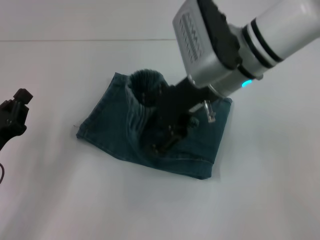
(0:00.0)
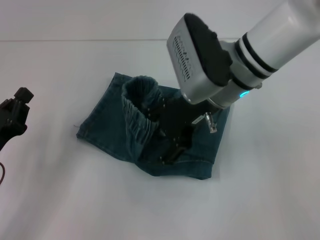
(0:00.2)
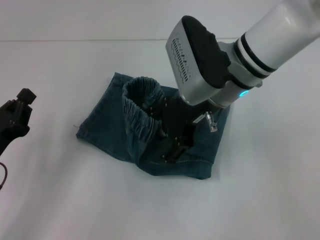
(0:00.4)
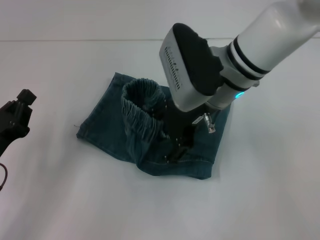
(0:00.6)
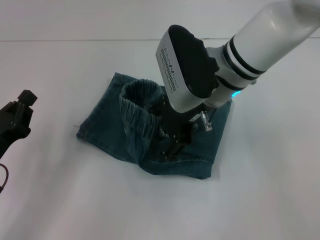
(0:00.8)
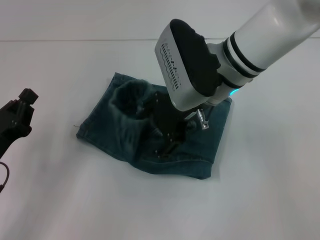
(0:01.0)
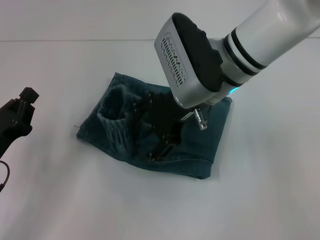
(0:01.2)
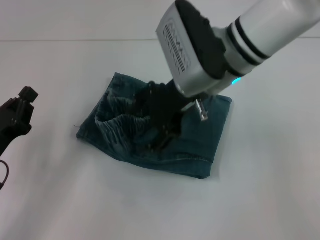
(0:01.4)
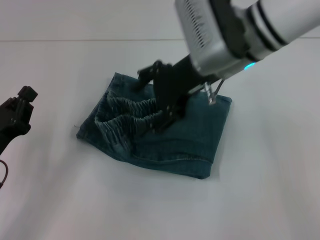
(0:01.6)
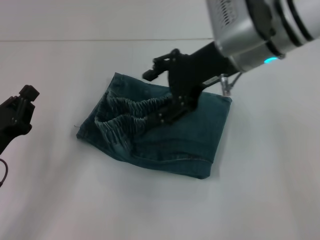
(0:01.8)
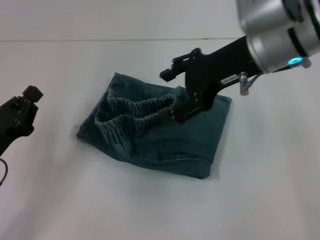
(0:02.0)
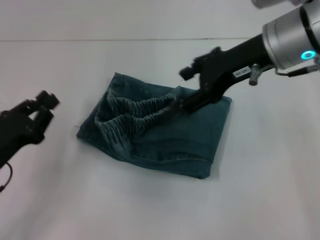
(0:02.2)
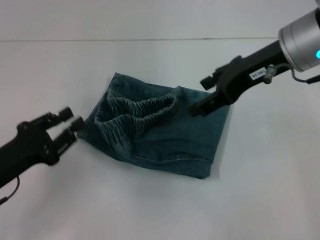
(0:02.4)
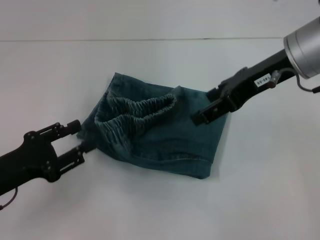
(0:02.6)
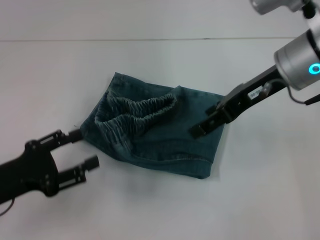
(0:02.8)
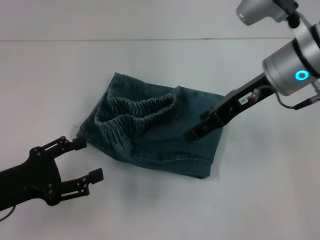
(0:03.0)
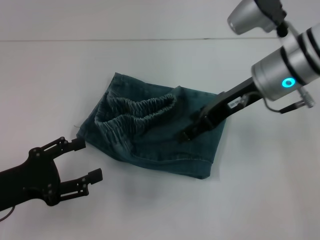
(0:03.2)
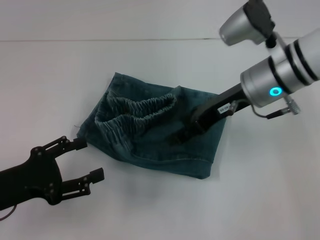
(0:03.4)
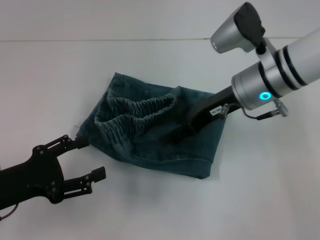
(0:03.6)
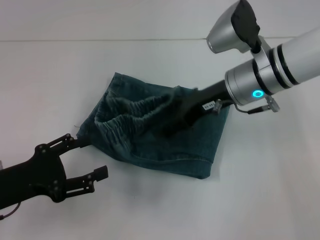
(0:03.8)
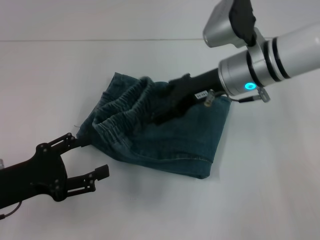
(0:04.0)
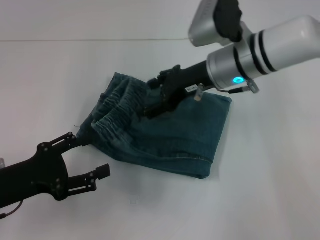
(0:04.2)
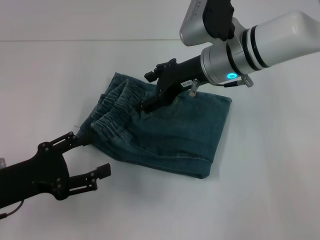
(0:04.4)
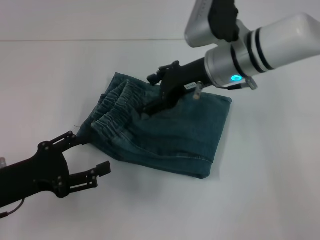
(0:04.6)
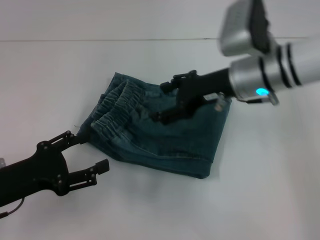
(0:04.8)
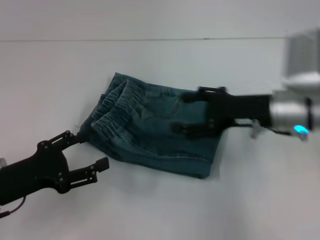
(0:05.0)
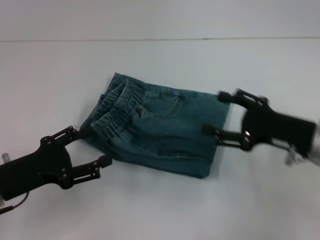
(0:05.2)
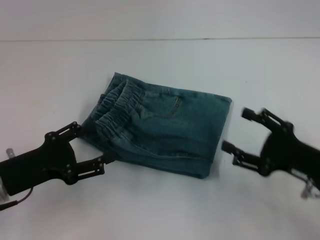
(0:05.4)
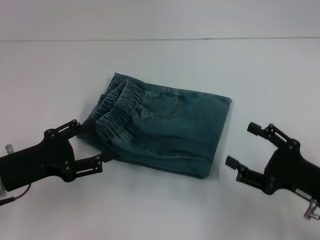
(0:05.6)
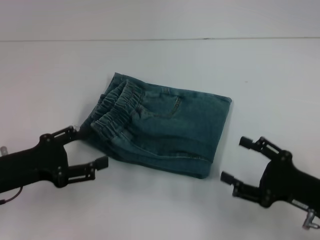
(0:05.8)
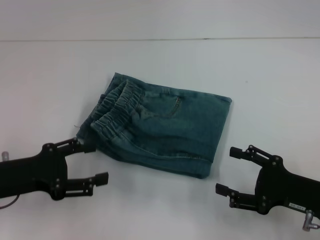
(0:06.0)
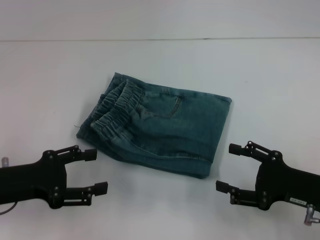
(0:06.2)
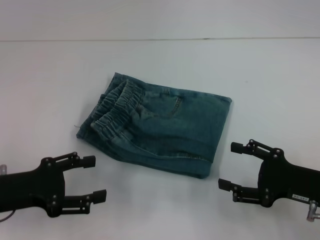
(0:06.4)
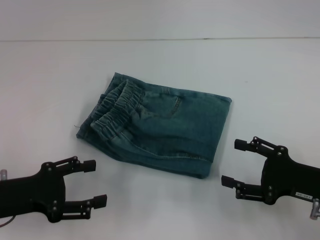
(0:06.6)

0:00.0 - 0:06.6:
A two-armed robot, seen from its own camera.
Step, 0:00.0 - 0:04.6: Fold to the left with your right hand.
0:00.0 - 0:01.6: The grippers stay close to where they were, moving slightly.
0:01.6 - 0:03.2: The left gripper opens, while the right gripper moves to the right, some 5 cm.
0:03.2 - 0:05.0: The right gripper travels downward by roughly 5 cm.
0:05.0 - 0:06.6: The right gripper moves backward, to the right and downward, approximately 15 cm.

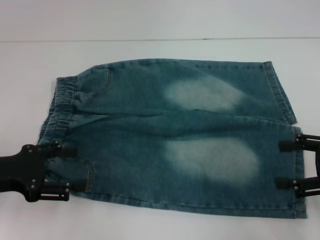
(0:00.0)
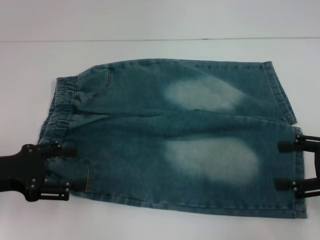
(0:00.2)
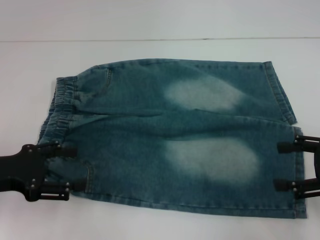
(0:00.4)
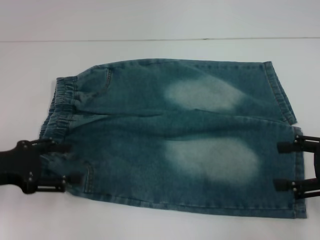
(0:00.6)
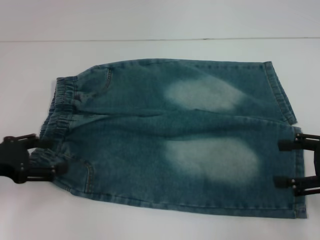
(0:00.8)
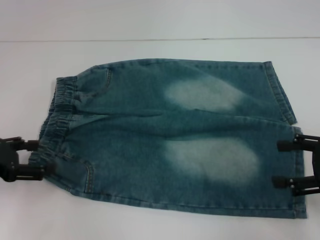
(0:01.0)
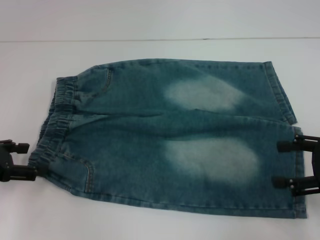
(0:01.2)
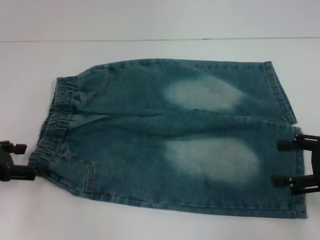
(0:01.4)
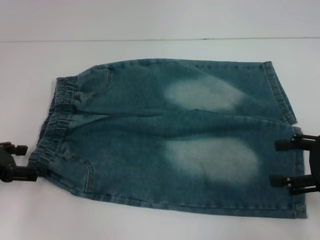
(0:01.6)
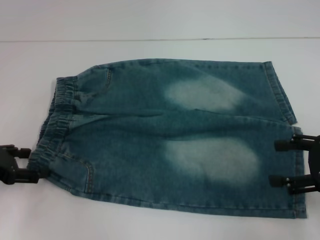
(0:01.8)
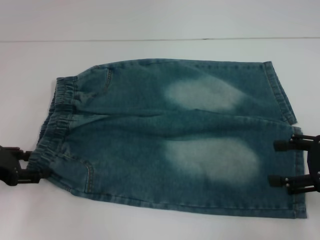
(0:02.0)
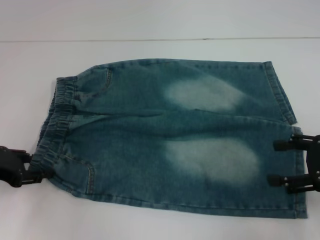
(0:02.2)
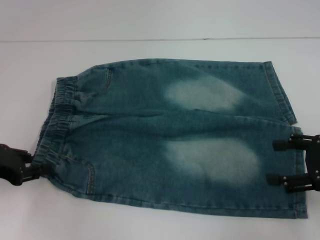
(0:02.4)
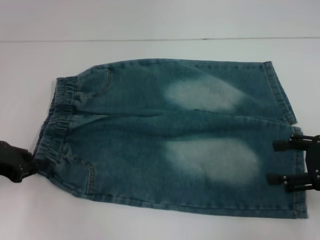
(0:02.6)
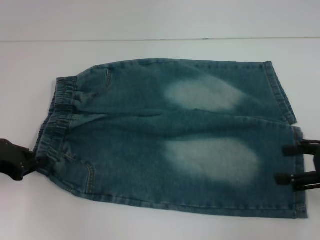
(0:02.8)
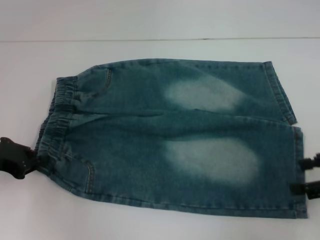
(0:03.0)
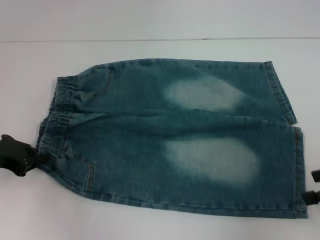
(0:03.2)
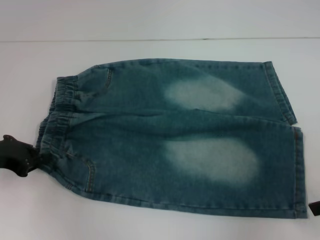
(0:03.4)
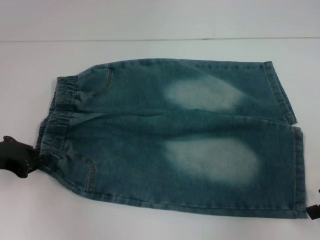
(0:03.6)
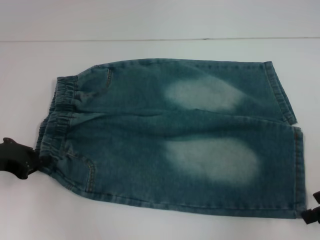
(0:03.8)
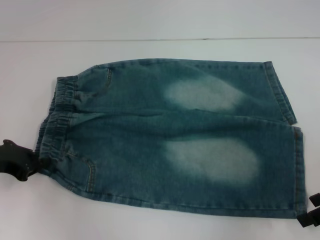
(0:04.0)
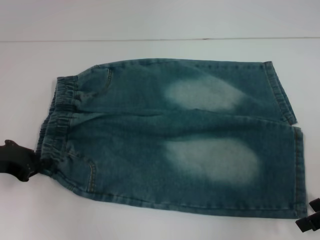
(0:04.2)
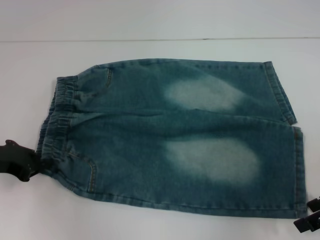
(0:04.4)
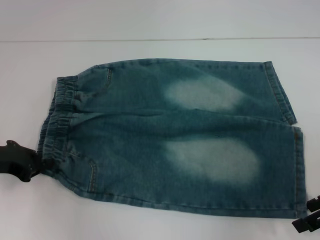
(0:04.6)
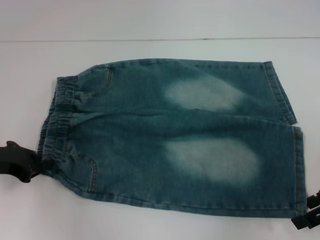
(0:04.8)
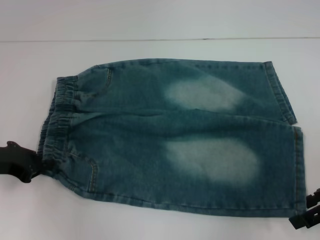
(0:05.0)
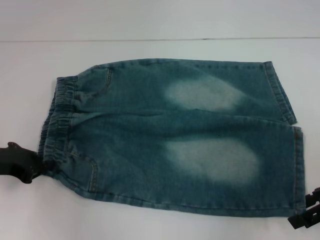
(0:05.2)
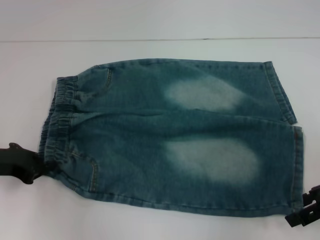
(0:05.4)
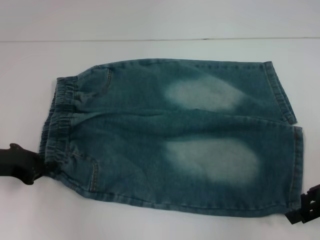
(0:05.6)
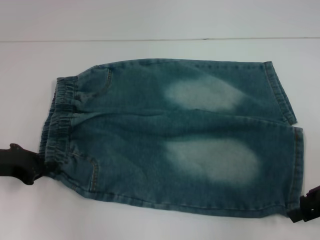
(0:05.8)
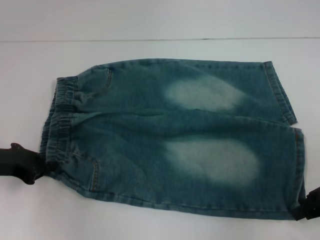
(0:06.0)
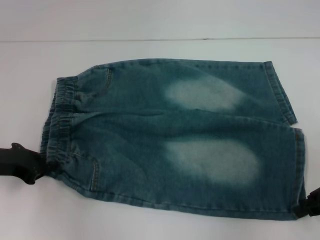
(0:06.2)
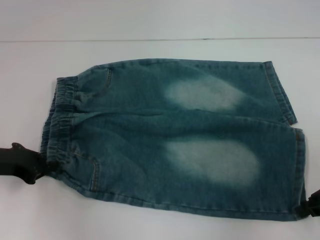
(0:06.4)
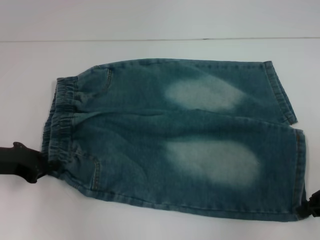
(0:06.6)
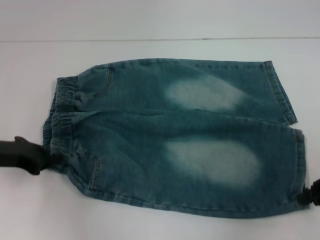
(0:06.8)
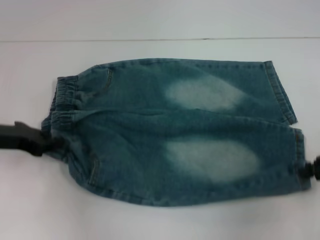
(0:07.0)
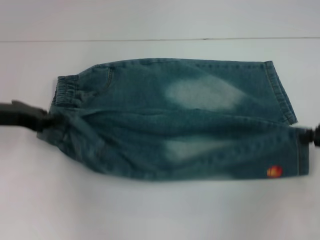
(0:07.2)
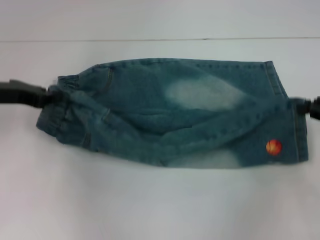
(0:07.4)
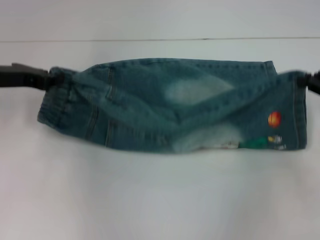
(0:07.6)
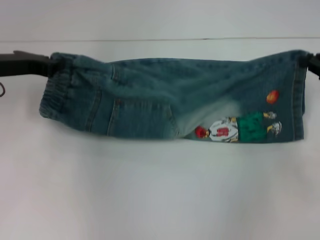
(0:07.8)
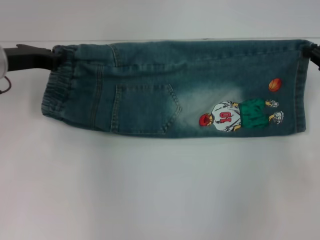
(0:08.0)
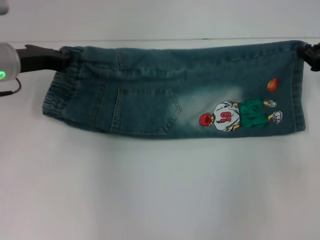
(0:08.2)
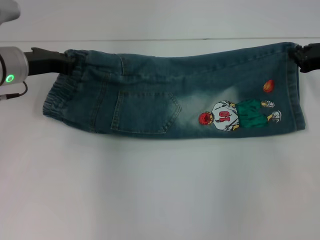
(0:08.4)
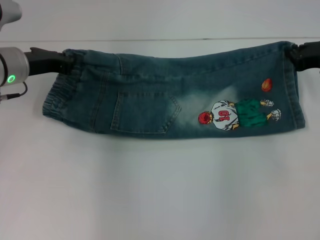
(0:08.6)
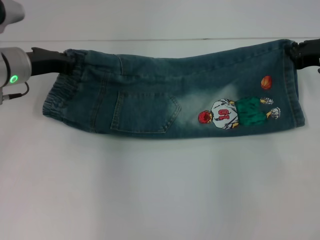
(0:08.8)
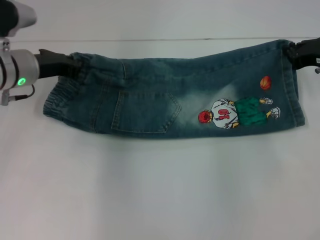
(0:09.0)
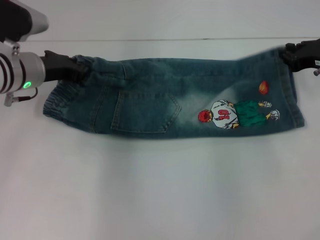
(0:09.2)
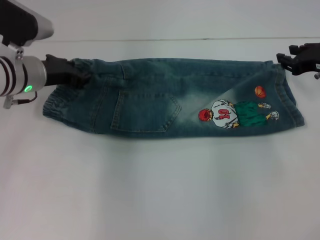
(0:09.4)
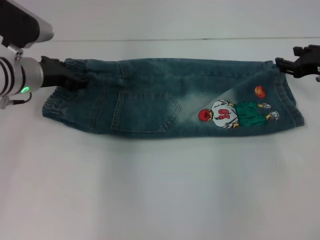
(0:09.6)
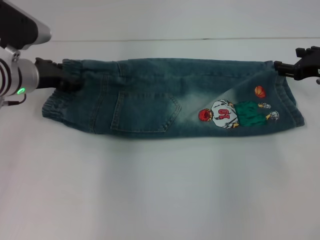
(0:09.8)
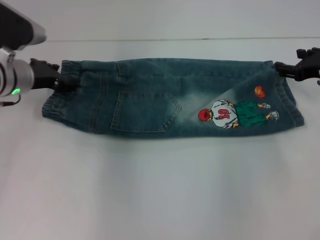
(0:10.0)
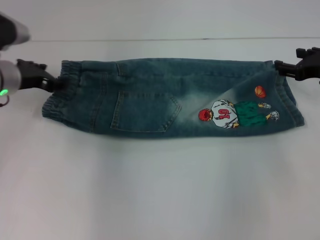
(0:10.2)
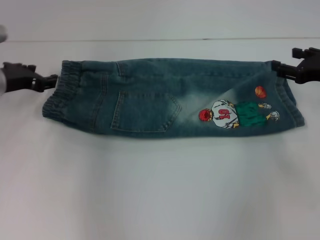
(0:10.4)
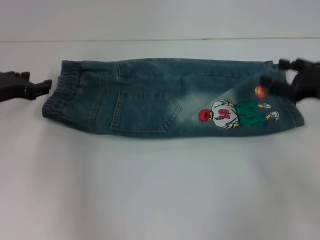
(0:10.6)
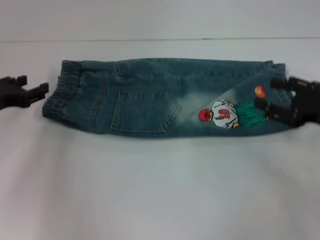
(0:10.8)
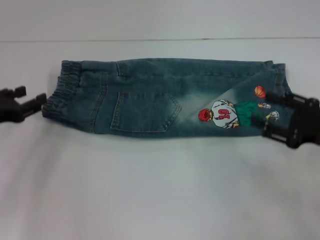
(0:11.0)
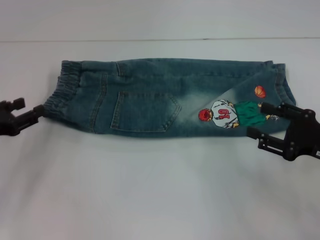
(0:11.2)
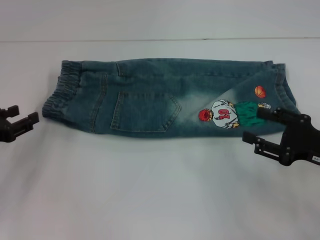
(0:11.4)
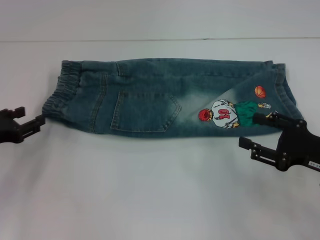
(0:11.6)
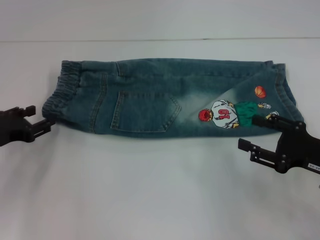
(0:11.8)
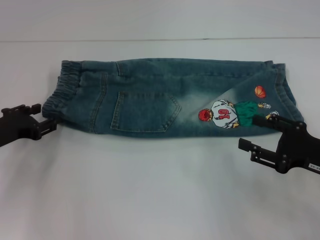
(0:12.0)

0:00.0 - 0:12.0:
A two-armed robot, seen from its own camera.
Step, 0:00.0 - 0:03.0: Hold the lower left waistband with your left hand.
Step, 0:06.8 - 0:10.0: Fold upward with your right hand.
0:01.6 - 0:03.0: The left gripper closes.
0:04.4 - 0:06.0: Both grippers stay put.
0:06.0 - 0:07.6: The right gripper goes some 5 cm forward, and closes its fingers. The left gripper is displaced forward and upward by roughly 10 cm.
0:07.6 - 0:09.0: The left gripper travels to the right by approximately 5 cm. Meanwhile the right gripper heads forward, covering roughly 5 cm.
0:09.0 - 0:10.4: The right gripper opens its fingers, while the left gripper shifts by approximately 5 cm, and opens up.
0:10.4 - 0:12.0: The grippers both shift backward and downward by some 10 cm.

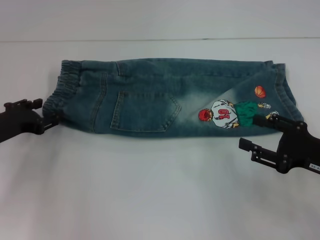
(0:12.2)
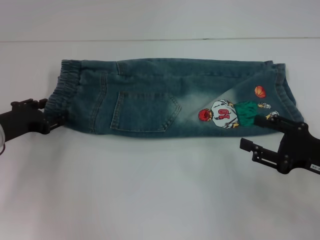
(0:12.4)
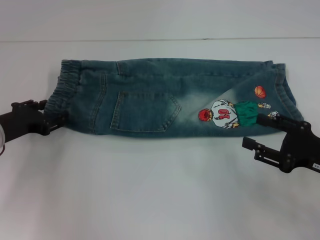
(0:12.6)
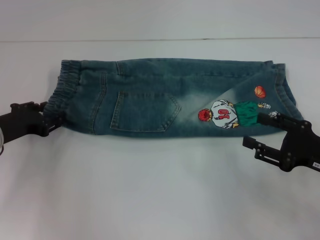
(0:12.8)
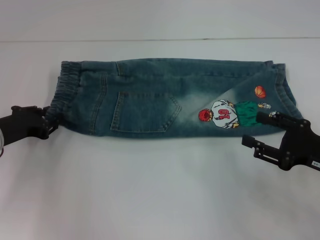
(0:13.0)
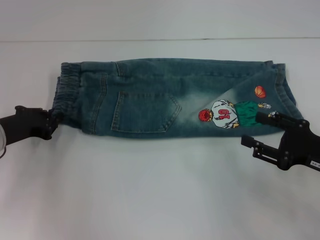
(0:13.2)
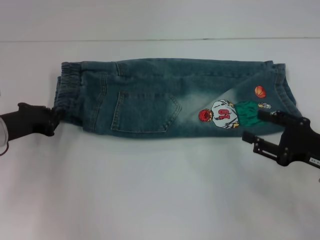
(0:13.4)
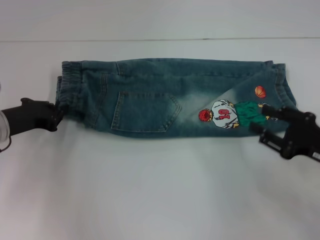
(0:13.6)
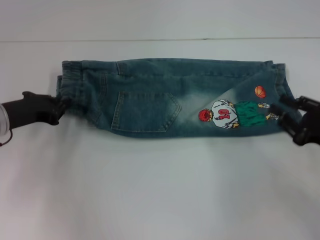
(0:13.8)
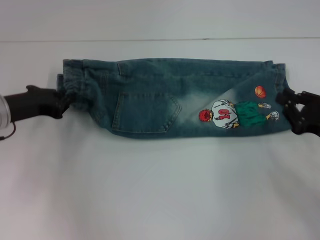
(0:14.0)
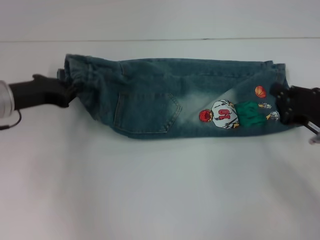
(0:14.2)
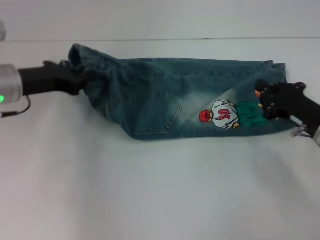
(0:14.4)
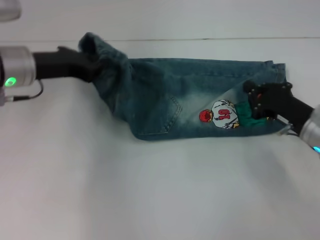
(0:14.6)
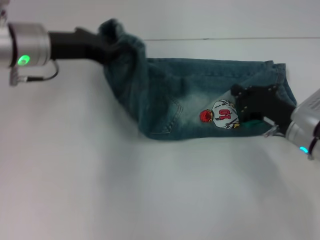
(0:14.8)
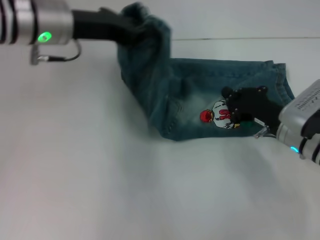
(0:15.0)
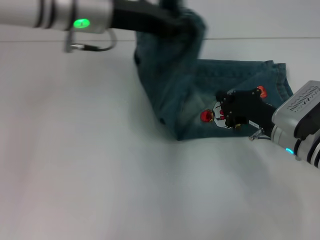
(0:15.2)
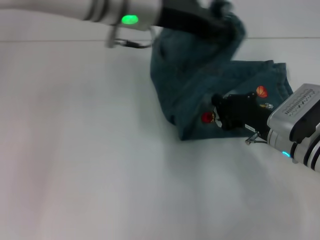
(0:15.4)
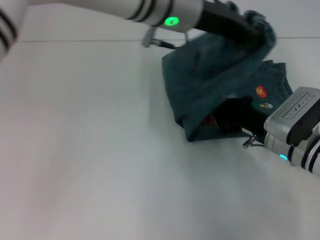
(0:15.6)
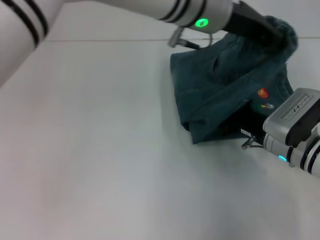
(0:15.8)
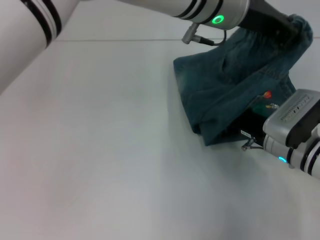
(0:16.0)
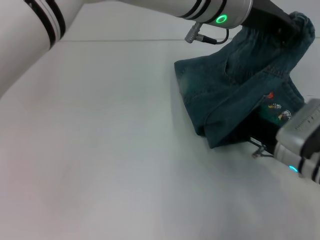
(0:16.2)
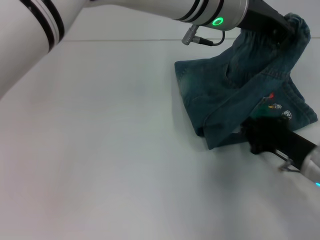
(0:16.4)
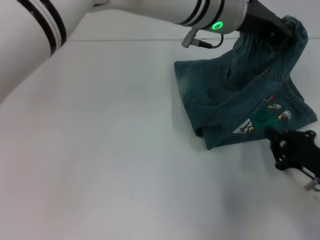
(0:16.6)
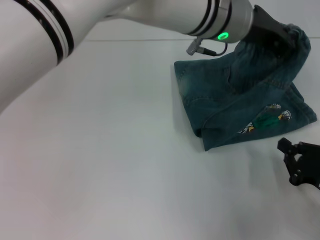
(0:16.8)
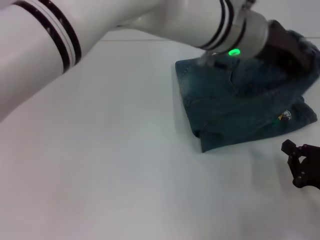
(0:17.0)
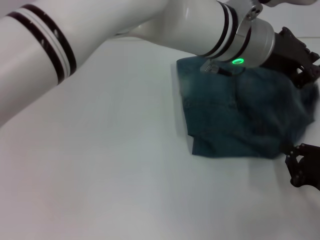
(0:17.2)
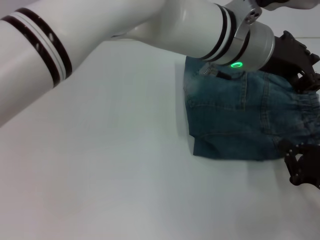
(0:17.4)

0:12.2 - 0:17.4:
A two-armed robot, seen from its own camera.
Step, 0:13.0 - 0:16.4: Press the middle of the pants with your right hand.
0:12.2 - 0:14.0: The left gripper ends up approximately 5 cm from where it was, and closes up.
0:14.0 - 0:15.6: The left gripper moves to the right and upward, about 30 cm. Meanwhile the right gripper heads to the left and forward, covering about 10 cm, and closes its fingers.
0:15.6 - 0:17.4: The right gripper moves backward and to the right, some 15 cm, while the left gripper shifts roughly 10 cm to the right.
